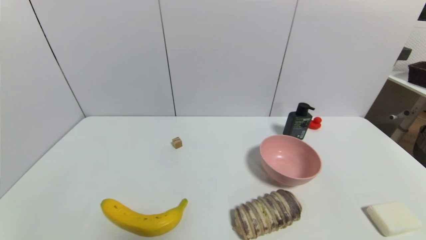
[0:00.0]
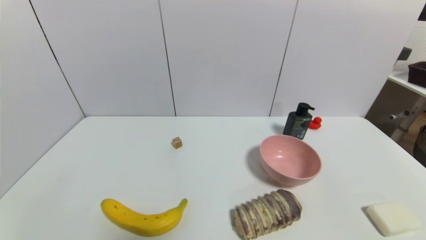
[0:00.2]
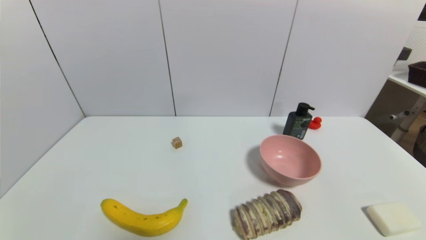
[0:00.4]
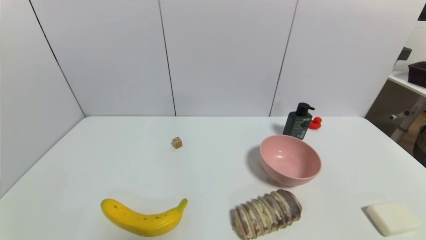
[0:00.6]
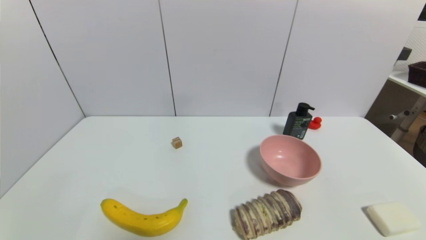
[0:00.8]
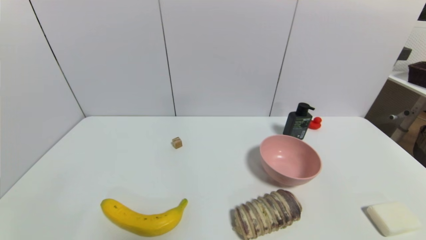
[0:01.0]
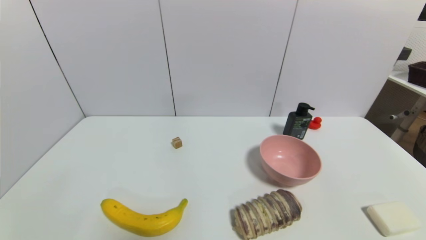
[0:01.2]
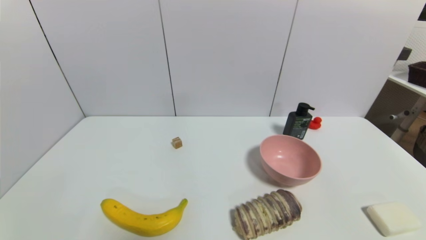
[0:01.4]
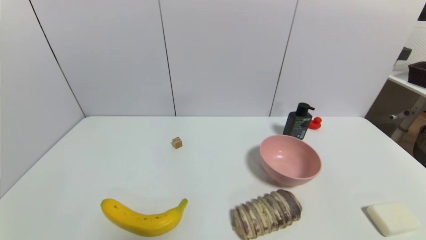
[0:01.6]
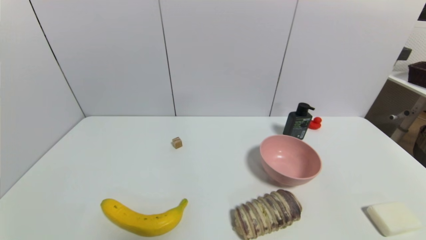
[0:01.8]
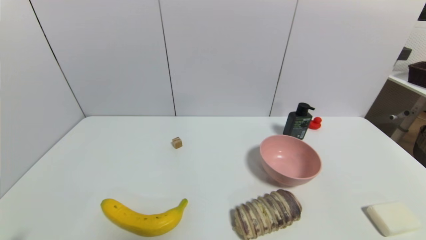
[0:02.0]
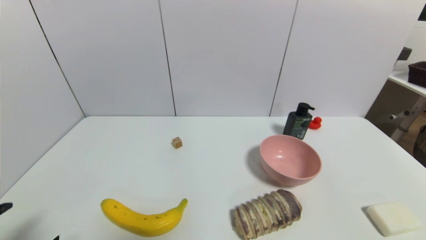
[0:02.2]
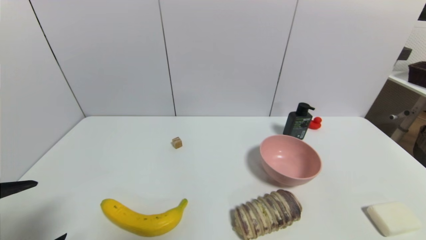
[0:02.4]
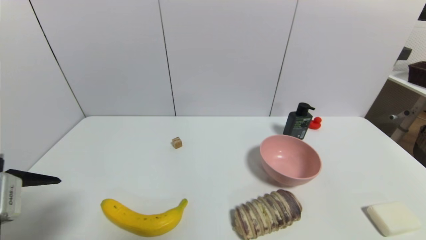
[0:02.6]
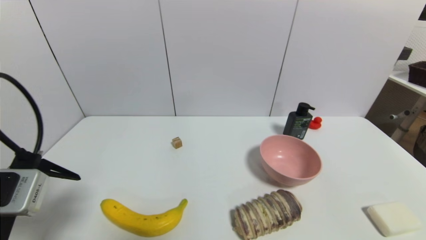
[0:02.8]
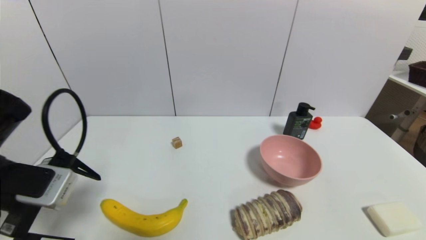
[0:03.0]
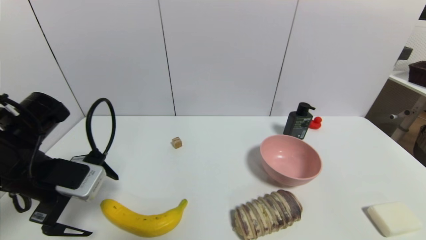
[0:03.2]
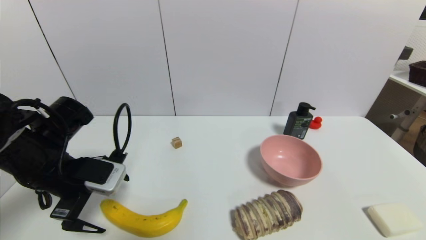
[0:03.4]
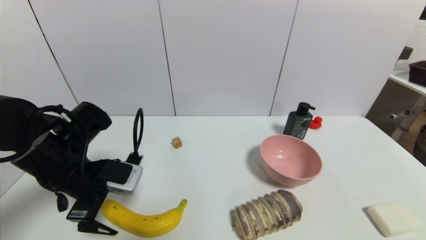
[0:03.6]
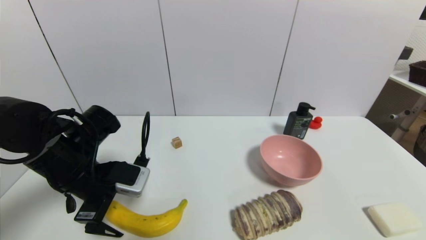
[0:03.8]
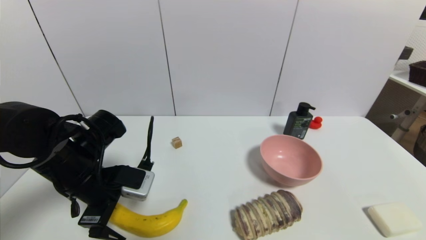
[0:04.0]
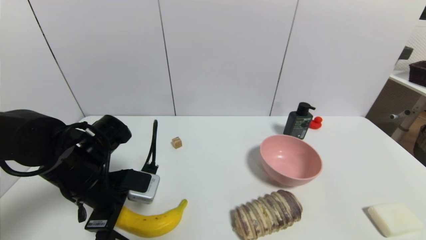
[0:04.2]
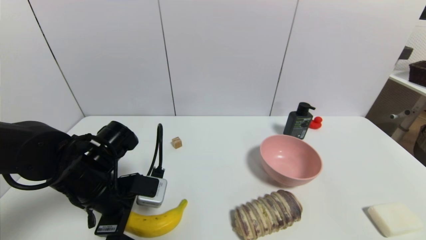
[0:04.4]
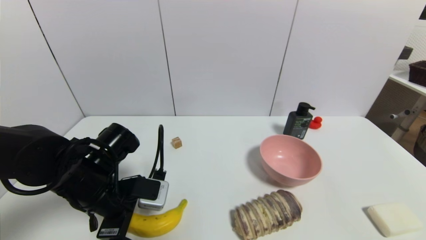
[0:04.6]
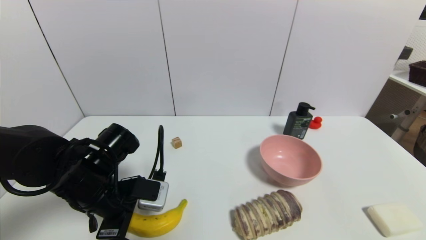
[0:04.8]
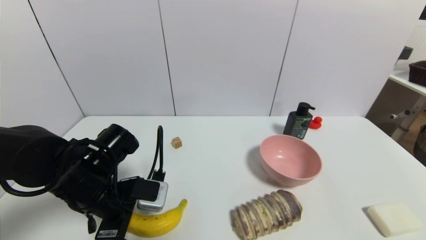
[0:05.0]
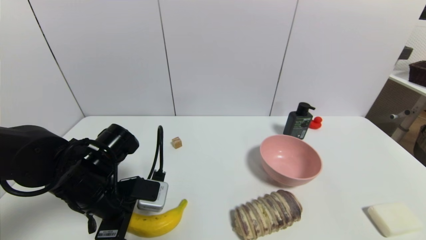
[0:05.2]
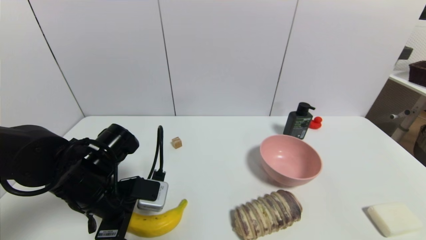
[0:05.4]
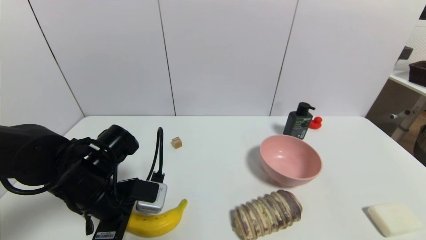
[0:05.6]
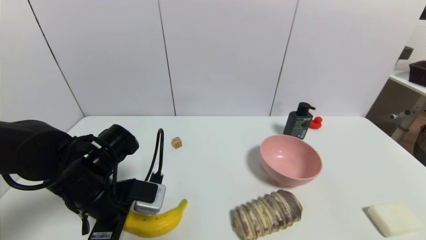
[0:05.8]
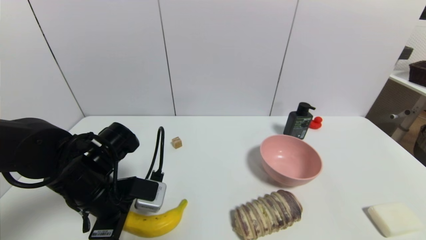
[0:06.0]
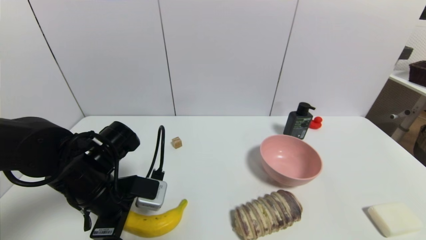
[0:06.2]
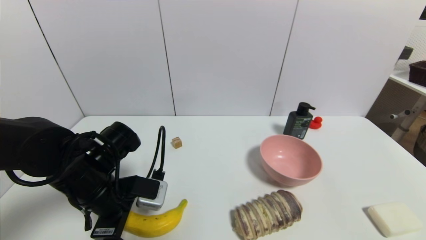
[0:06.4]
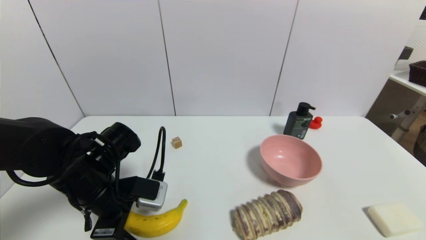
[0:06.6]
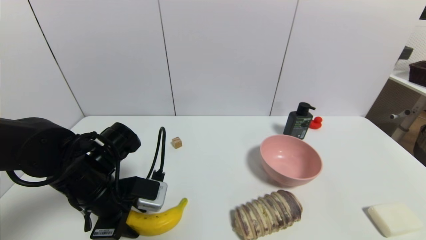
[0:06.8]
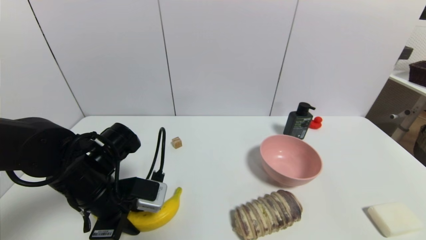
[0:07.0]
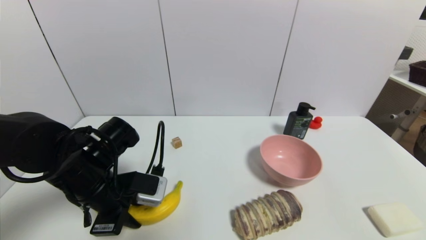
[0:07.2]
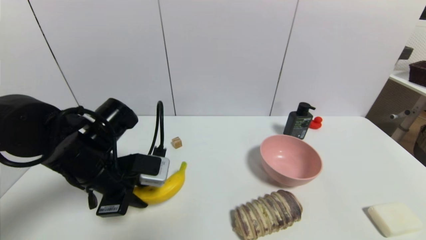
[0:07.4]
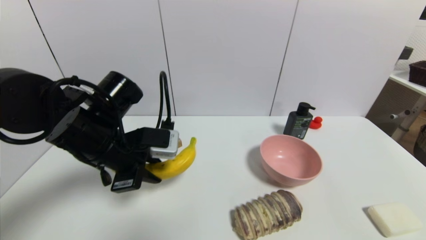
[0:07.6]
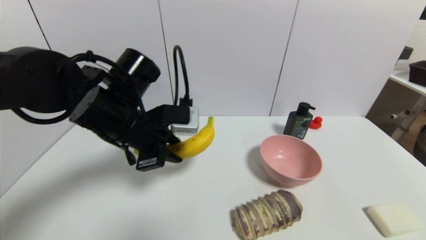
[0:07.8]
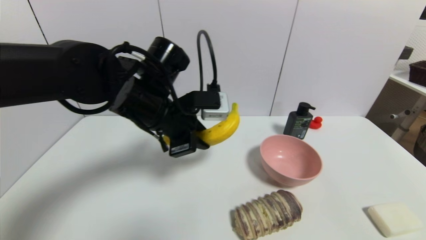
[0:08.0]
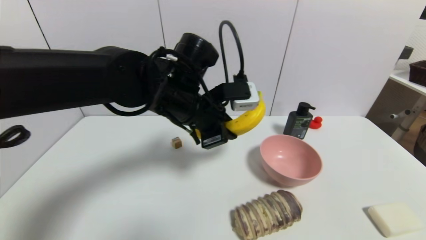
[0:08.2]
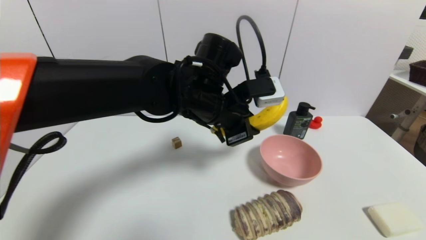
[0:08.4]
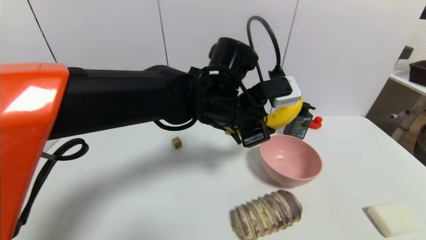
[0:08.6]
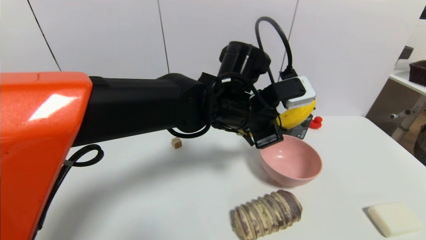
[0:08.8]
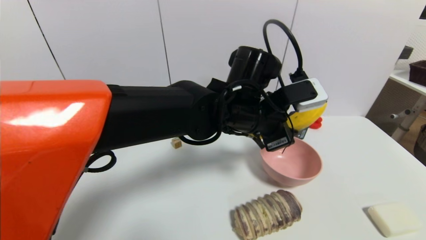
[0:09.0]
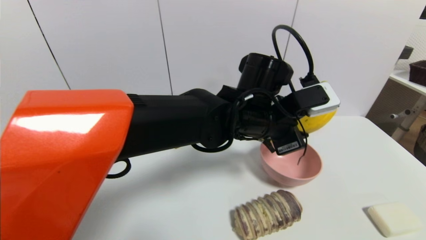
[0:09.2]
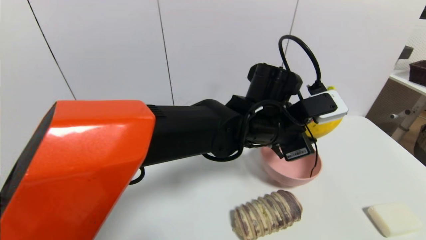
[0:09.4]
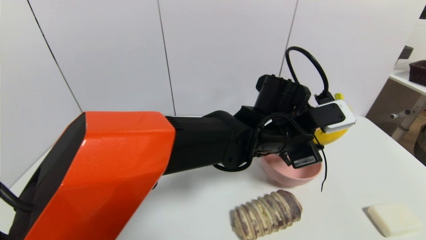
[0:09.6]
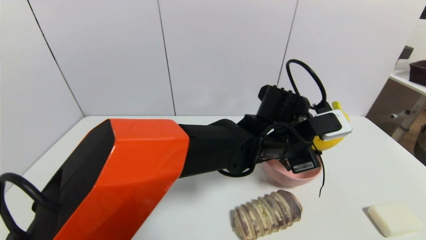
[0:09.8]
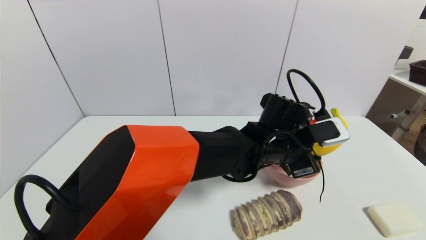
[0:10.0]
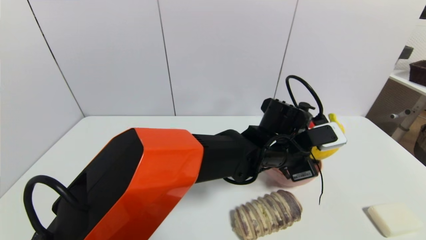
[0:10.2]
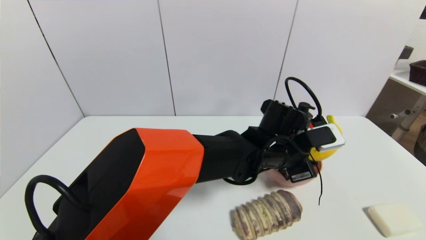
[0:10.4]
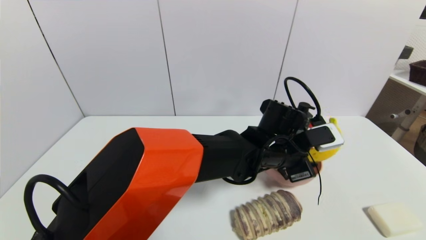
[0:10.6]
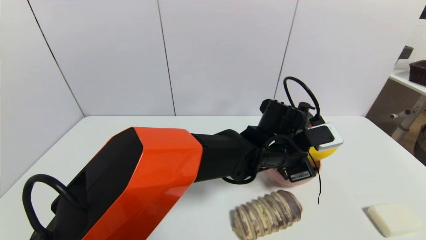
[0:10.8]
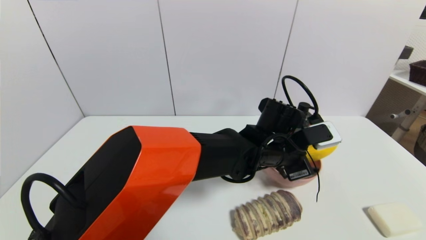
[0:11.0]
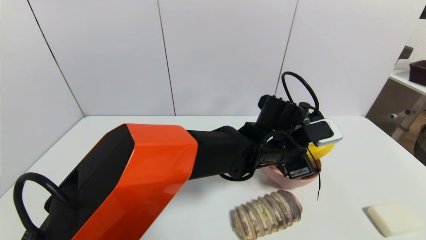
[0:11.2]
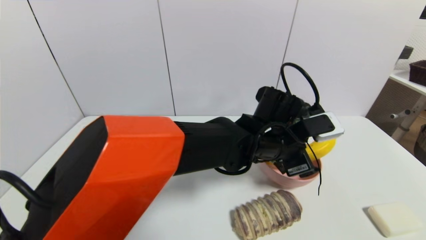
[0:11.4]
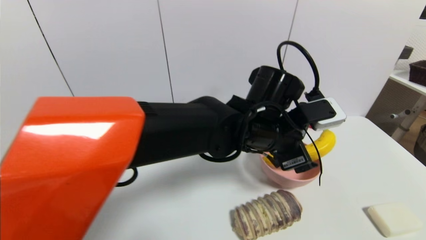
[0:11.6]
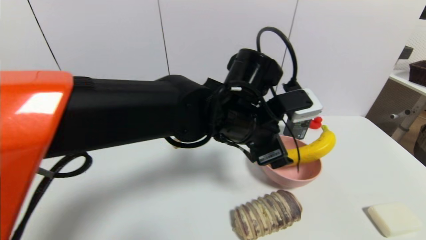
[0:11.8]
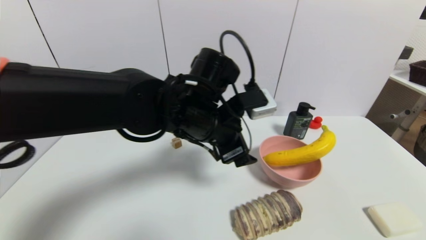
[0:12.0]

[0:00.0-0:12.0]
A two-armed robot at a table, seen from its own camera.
Task of the whole recording: use a gripper to pick the target object and place on the pink bowl.
Step, 0:00.0 to 0:07.0: Grasp the banana with the left gripper.
Step, 0:07.2 to 0:11.0: Place the banana on the pink bowl with the left gripper.
0:00.0 to 0:01.6: The two grippers keep their place.
0:01.6 to 0:03.0: The left gripper heads forward and upward, covering about 25 cm.
0:03.0 to 0:04.4: The left gripper travels to the right and downward by some 10 cm.
0:04.4 to 0:06.0: The two grippers keep their place.
0:06.0 to 0:07.6: The left gripper heads upward, covering roughly 10 cm, and closes its fingers.
0:07.6 to 0:09.0: The left gripper is displaced to the right by some 20 cm.
0:09.0 to 0:10.4: The left gripper shifts about 10 cm downward and to the right.
0:10.4 to 0:12.0: The left gripper moves to the left and upward, about 15 cm, and opens up.

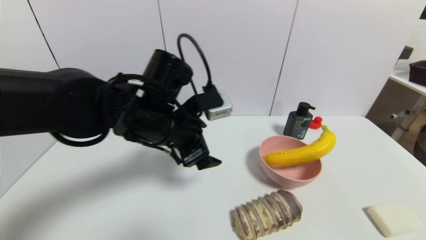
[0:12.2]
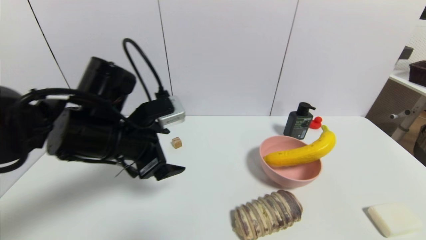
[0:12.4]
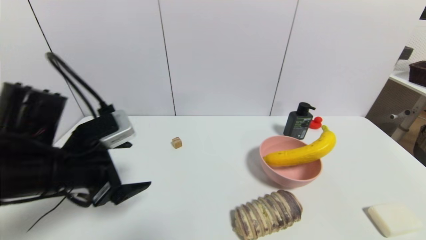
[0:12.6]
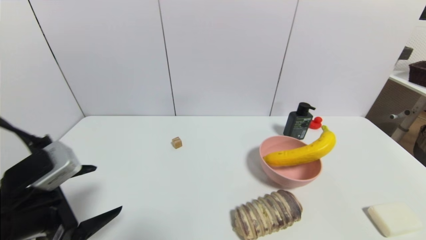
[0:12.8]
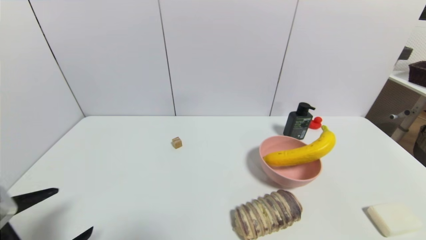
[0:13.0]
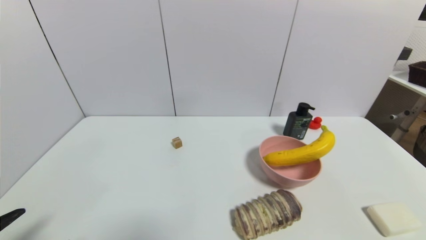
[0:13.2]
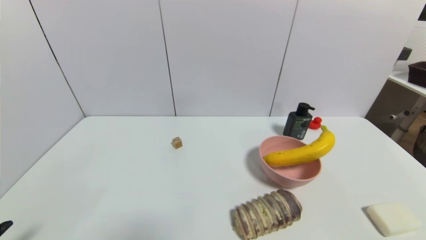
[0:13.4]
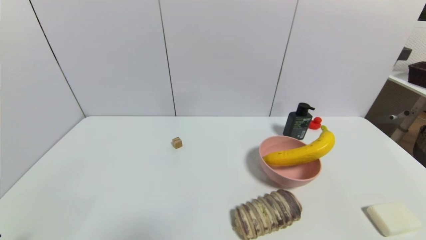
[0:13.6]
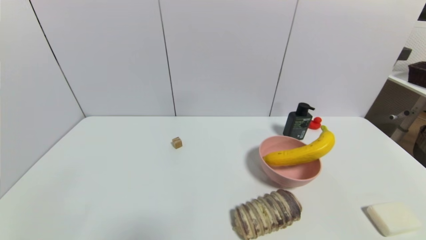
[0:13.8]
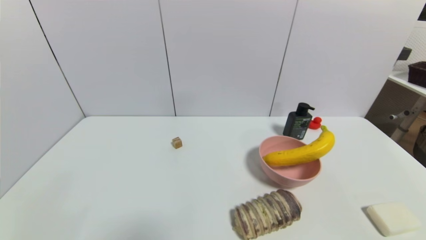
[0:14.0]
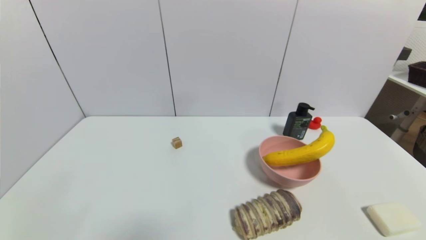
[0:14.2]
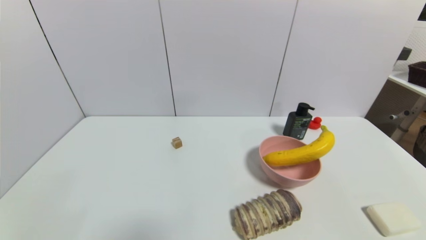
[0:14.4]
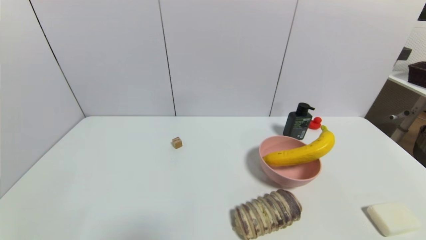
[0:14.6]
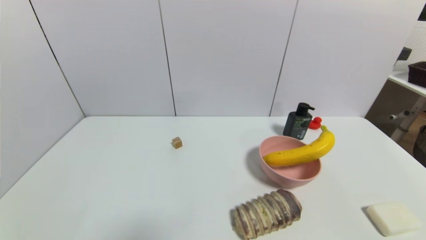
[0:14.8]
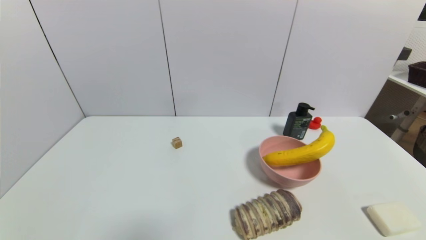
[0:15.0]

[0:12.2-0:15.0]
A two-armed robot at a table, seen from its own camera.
Task of the whole recording: use a gripper to pick the target object and place on the pink bowl.
0:12.2 to 0:13.6: The left gripper shifts roughly 35 cm backward, to the left and downward.
